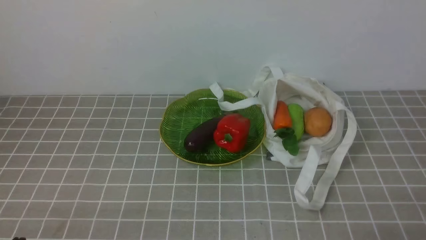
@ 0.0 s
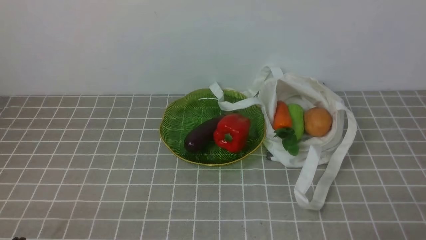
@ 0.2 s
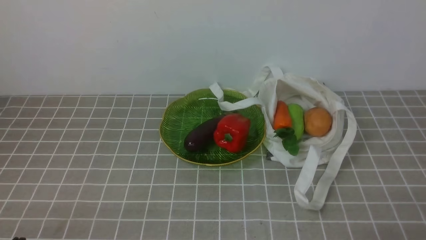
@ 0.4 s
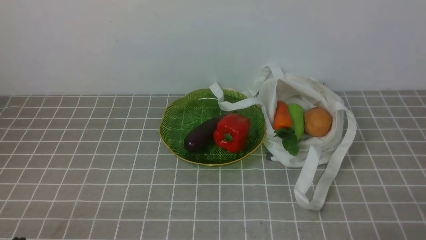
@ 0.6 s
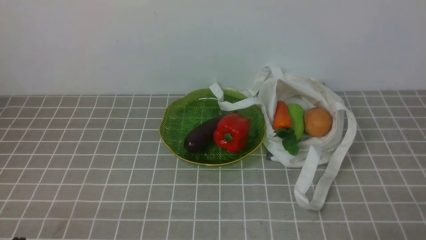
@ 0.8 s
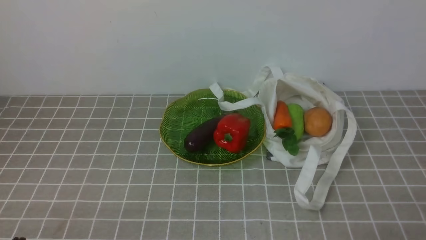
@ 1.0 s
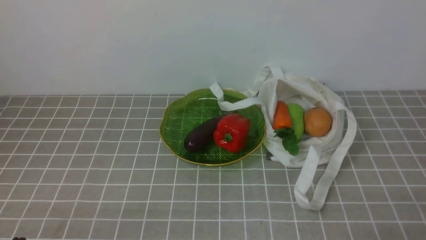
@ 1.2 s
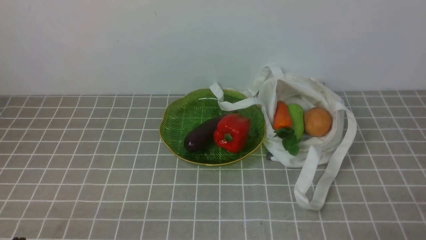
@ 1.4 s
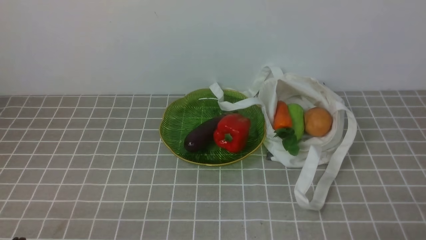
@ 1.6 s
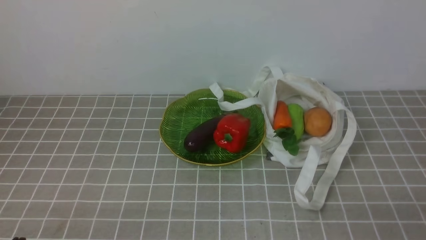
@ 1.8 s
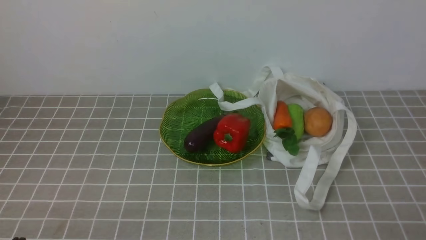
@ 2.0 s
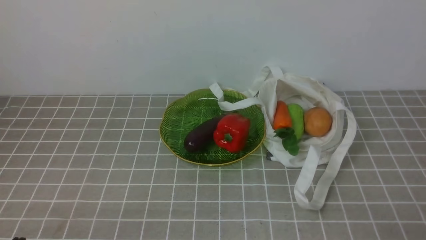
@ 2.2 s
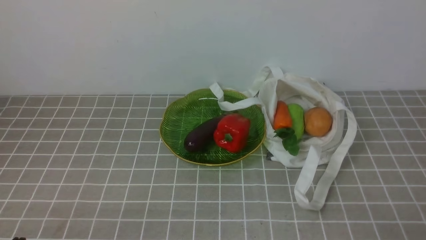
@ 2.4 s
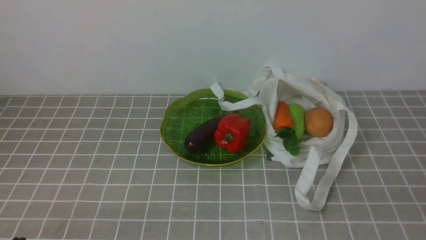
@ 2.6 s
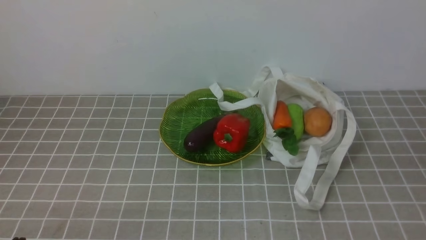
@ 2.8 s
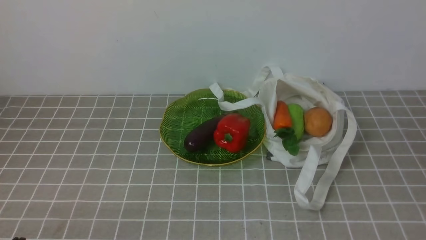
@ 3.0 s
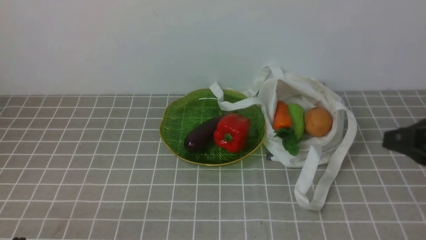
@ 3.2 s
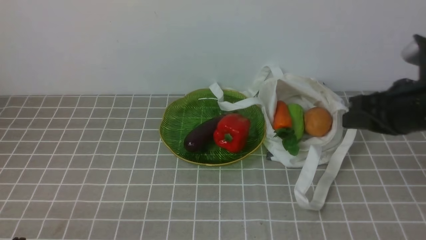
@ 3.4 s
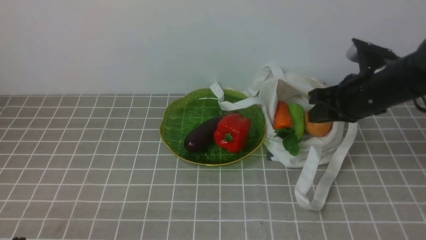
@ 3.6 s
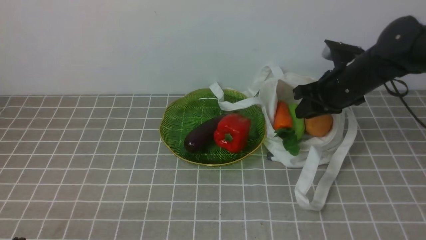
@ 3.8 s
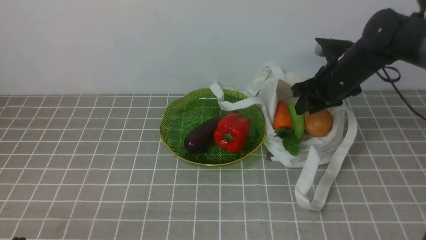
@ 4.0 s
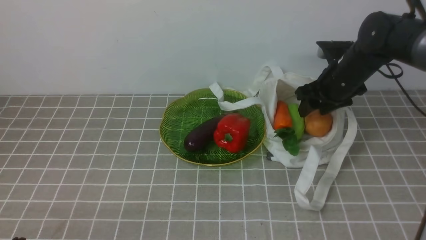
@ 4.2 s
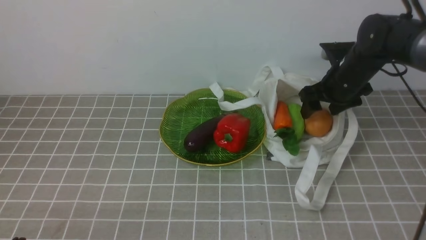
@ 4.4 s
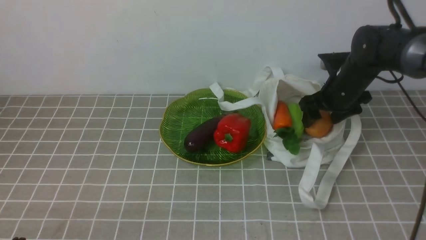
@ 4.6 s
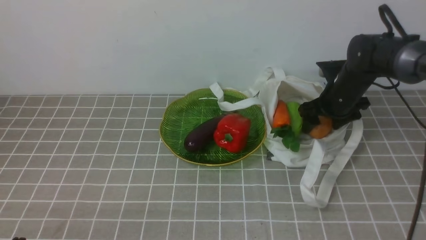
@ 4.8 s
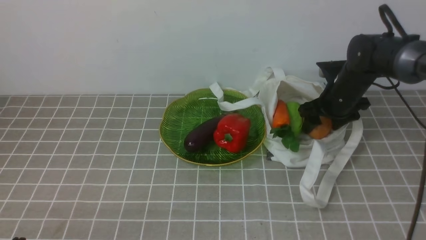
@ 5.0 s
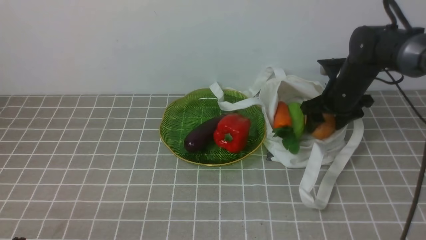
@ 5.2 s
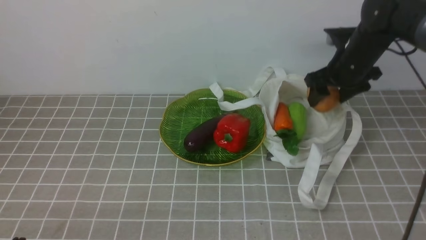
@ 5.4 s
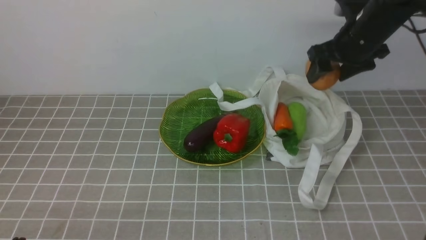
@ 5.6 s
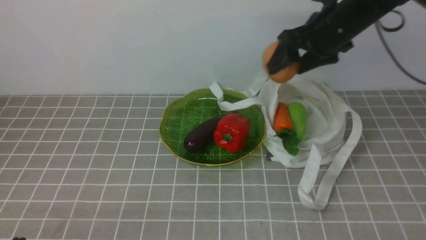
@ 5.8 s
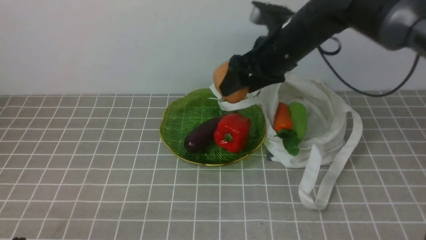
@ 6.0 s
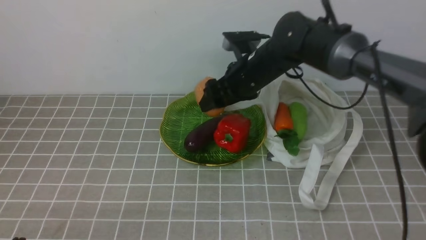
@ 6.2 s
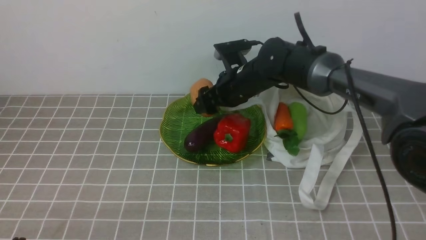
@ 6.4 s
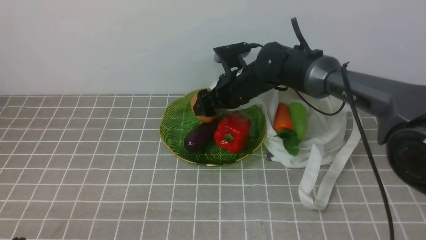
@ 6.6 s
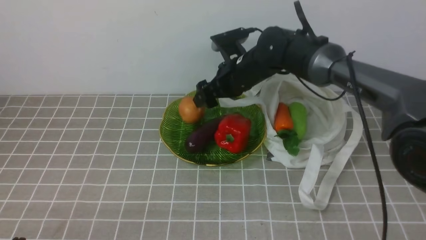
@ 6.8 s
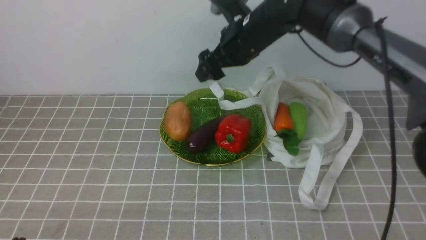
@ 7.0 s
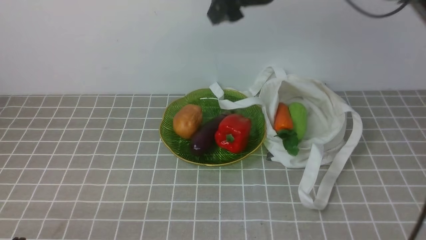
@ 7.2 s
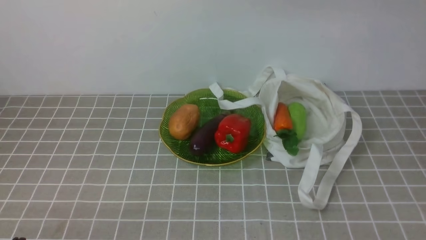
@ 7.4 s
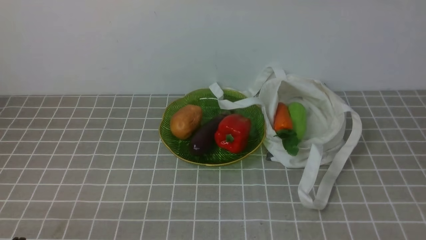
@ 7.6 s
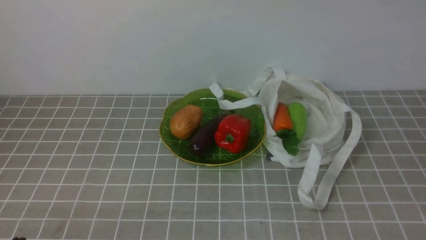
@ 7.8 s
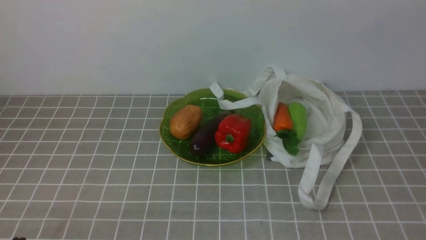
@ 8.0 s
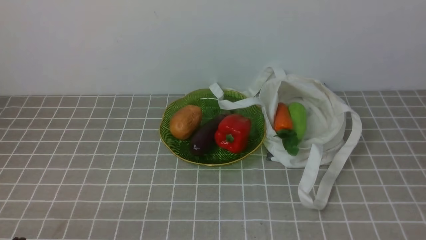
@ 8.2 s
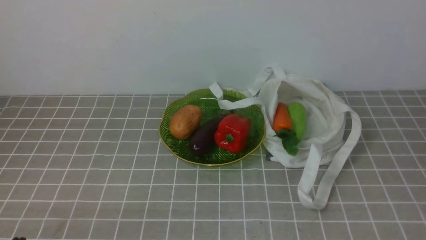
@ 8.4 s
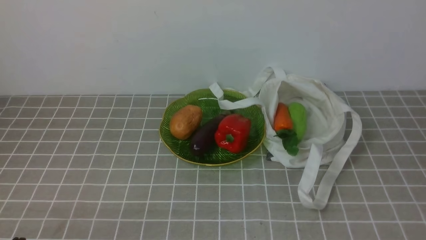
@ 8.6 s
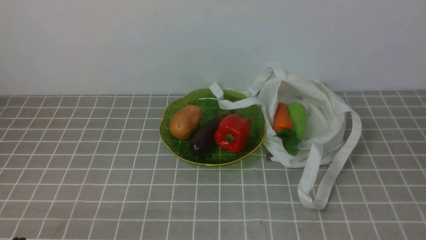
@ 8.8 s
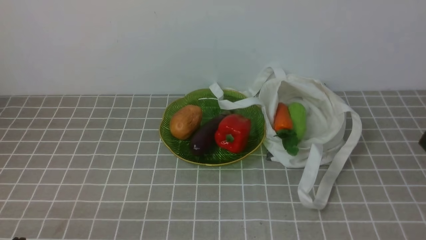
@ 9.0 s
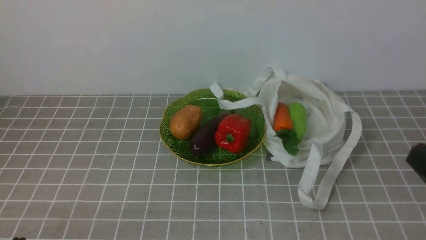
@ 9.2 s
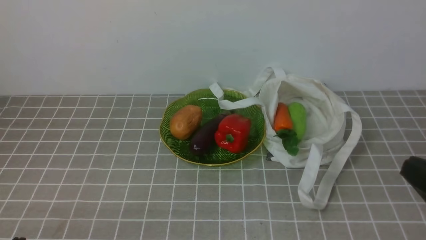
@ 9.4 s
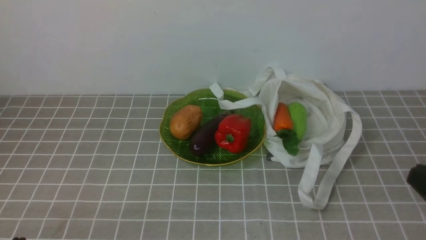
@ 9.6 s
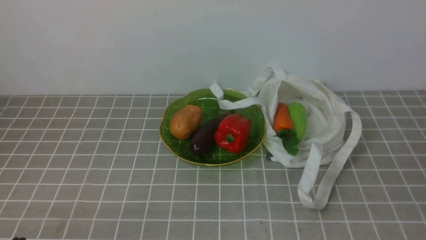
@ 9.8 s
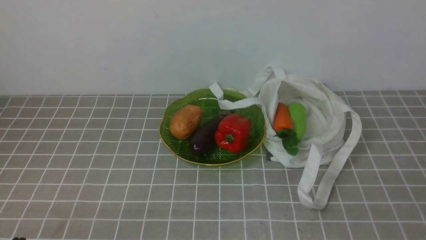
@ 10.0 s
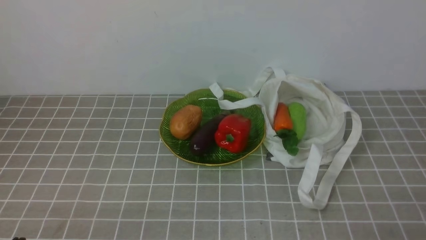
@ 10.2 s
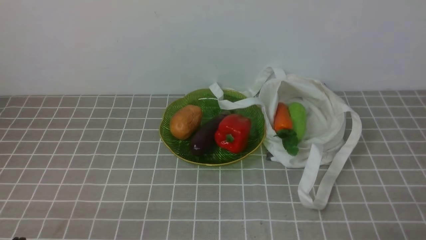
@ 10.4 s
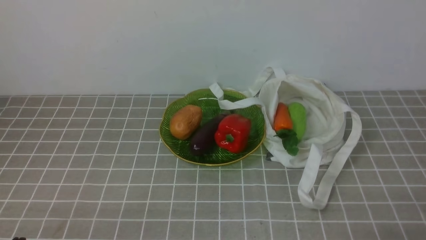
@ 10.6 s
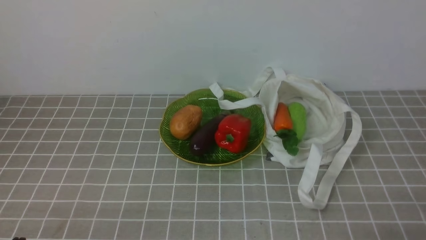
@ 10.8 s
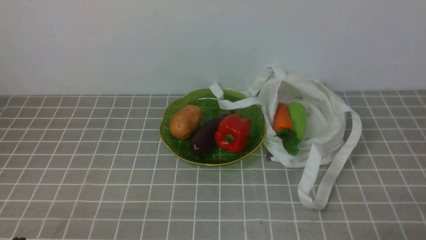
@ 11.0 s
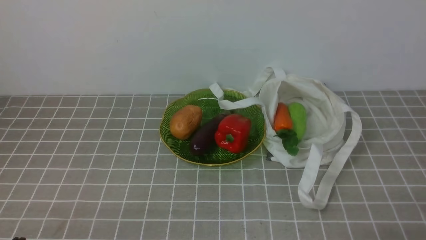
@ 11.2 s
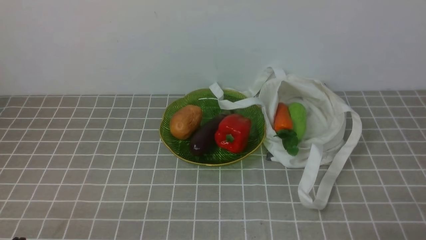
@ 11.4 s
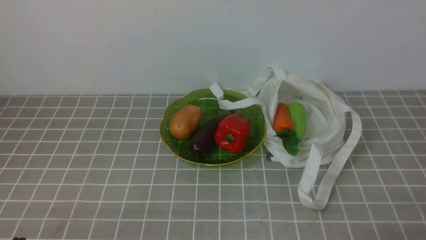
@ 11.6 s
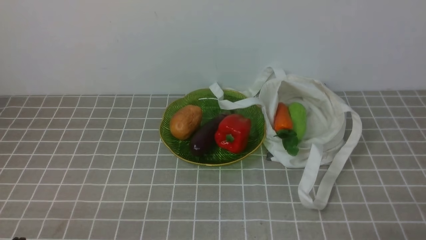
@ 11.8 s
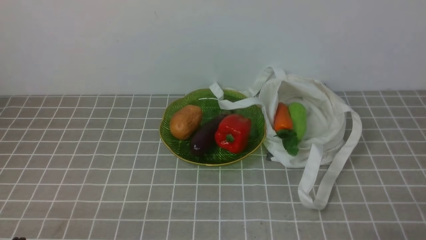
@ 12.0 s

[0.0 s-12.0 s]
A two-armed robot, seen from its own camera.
Task of the whole recording: take vegetables from bag on grey coffee tablecloth place on plate.
Step, 0.0 to 4.8 s: Grasp the potato with right gripper.
Step, 5.0 to 7.0 s: Place the potato on the plate with right gripper.
3.0 to 4.4 s: The right gripper goes about 35 cm forward and downward, and opens.
4.4 to 6.0 s: The right gripper moves to the left and upward, about 15 cm.
6.0 to 7.6 s: The right gripper is displaced upward and backward by some 30 cm, and closes.
10.4 to 12.0 s: Neither gripper changes place.

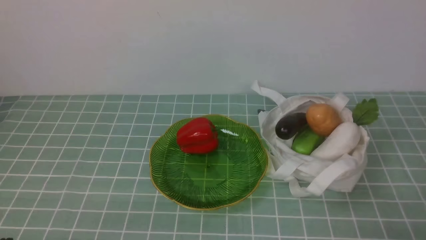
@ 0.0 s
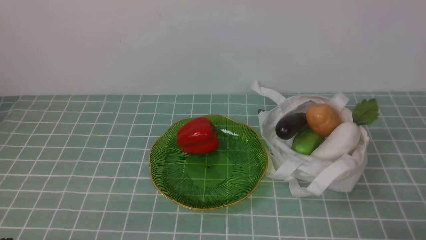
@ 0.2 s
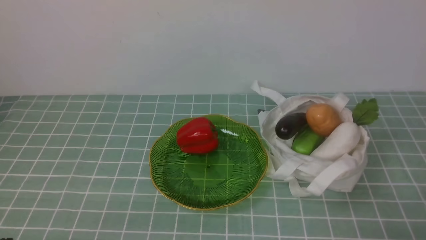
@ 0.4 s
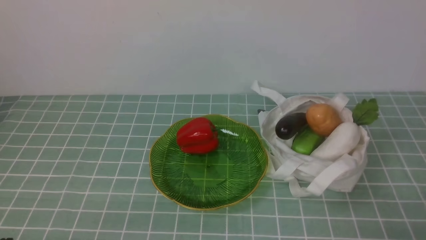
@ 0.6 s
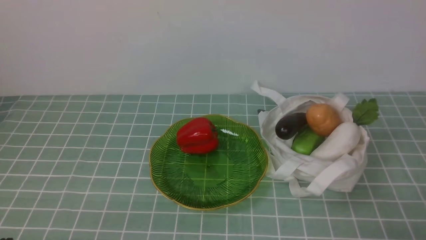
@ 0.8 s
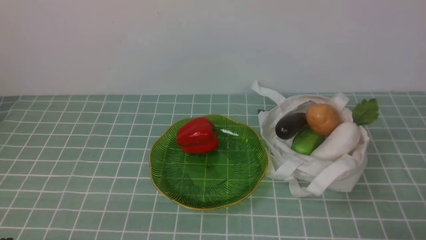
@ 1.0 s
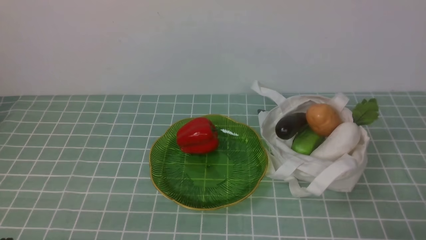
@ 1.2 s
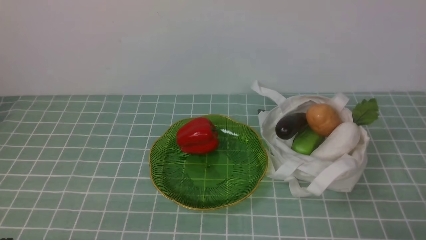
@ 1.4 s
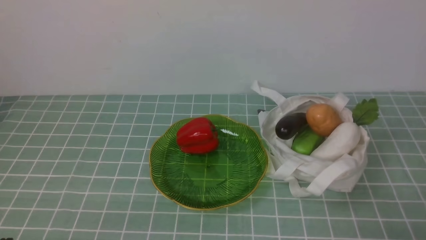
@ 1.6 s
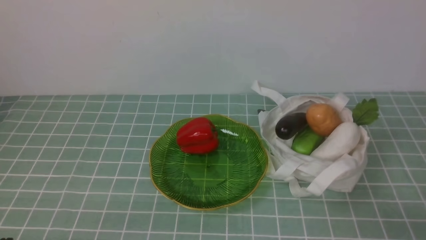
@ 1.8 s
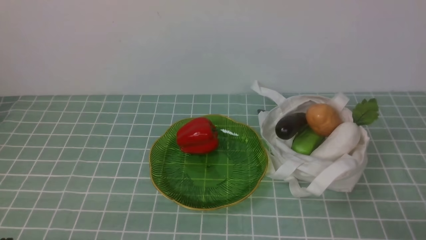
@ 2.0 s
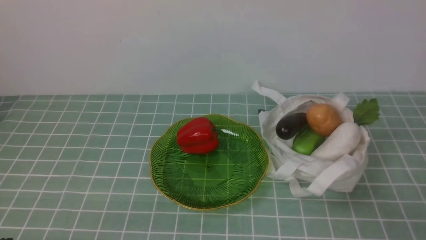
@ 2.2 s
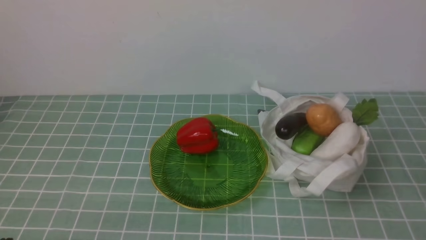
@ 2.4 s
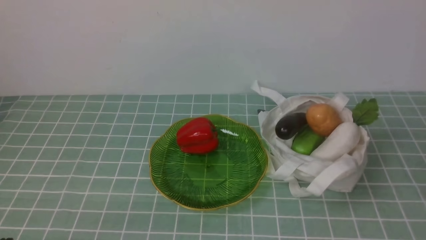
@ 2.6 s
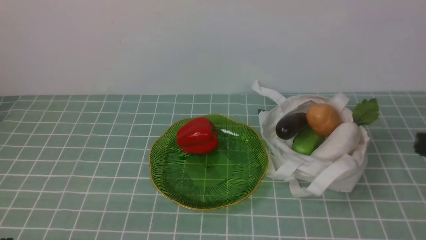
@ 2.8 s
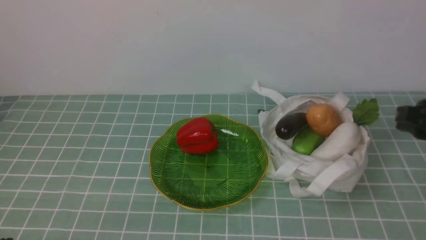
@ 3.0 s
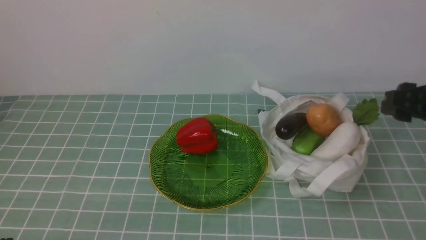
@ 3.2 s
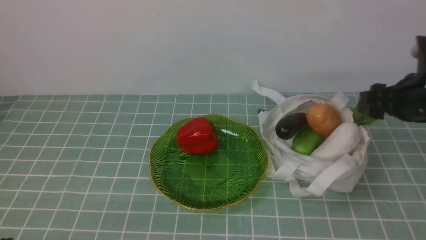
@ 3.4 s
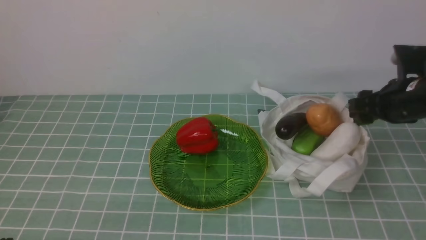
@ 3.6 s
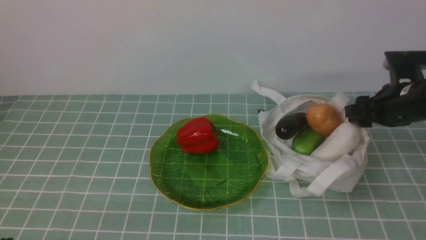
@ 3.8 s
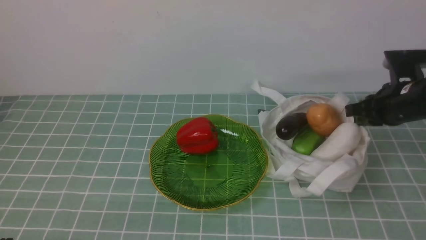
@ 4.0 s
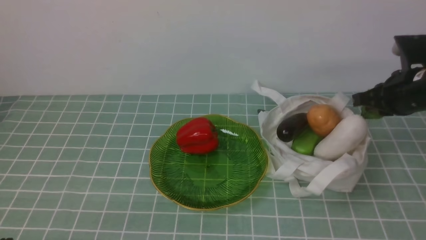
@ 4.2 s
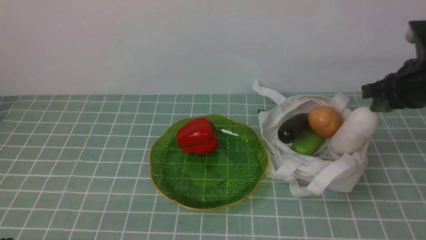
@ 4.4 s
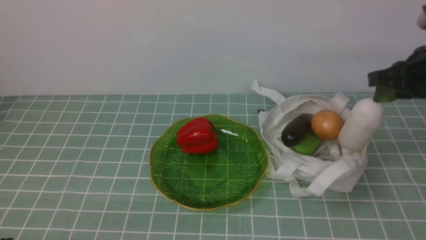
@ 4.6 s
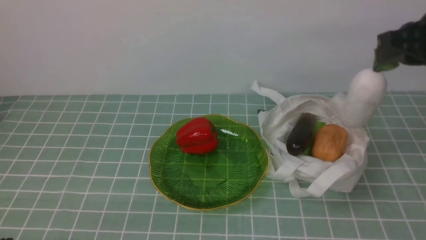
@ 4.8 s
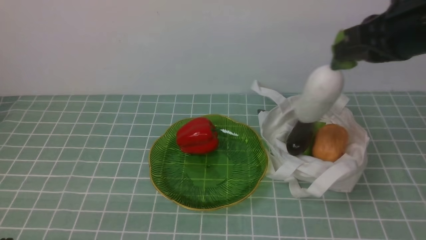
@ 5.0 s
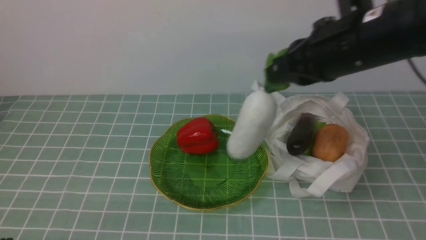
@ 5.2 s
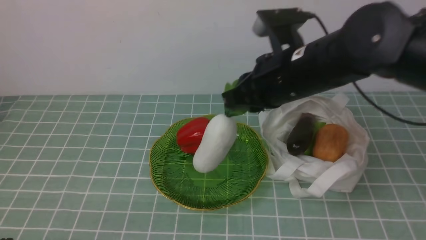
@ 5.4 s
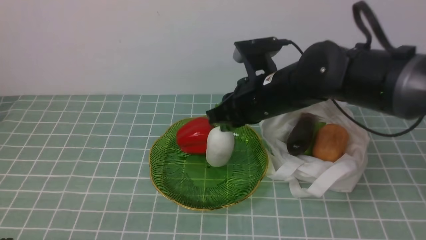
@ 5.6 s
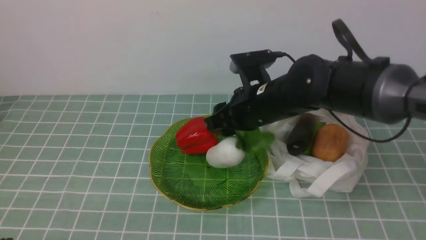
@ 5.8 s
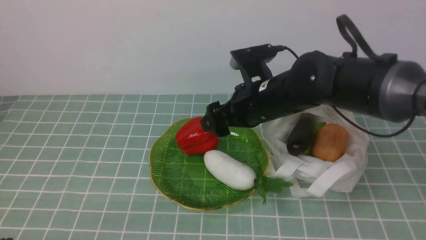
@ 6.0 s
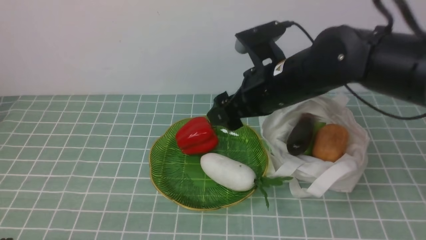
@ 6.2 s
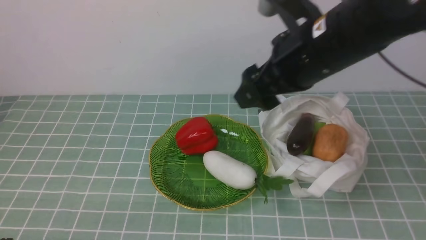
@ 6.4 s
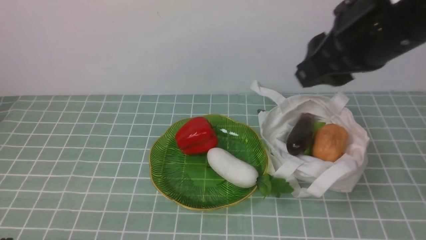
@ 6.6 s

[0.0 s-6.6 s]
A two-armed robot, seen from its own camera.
Task of the whole recording: take vegetables from cloth bag on blue coffee tablecloth place on plate.
Step, 0.0 to 4.0 s: Grasp the radish with right gripper.
Step, 4.2 to 6.0 s: Place the radish on the plate with right gripper.
1.6 to 3.2 s: The right gripper is displaced forward and upward by about 25 cm, and opens.
3.2 to 5.0 s: The right gripper goes roughly 15 cm upward and to the left, and closes its fingers.
5.0 to 6.6 s: The right gripper goes approximately 10 cm backward and to the left, reaches about 15 cm downward, then returns, and opens its fingers.
